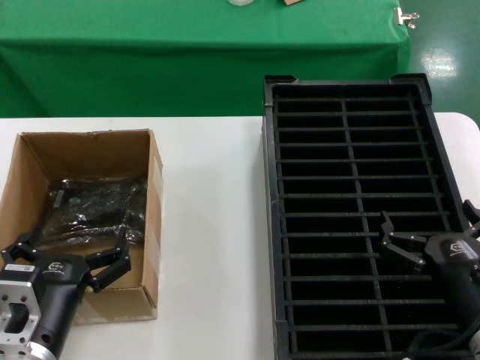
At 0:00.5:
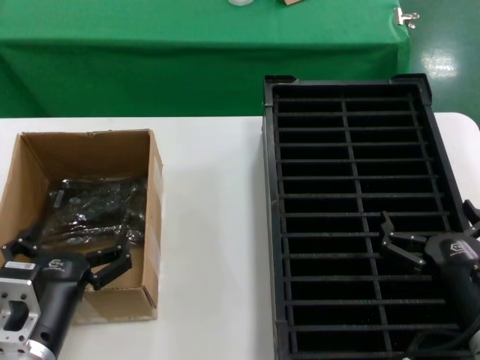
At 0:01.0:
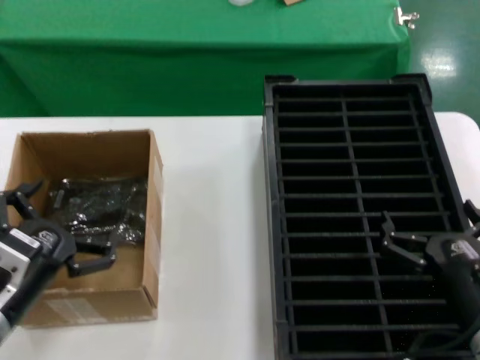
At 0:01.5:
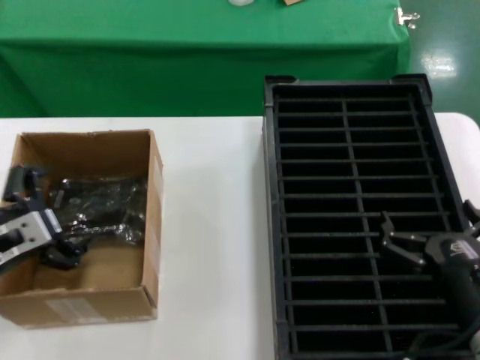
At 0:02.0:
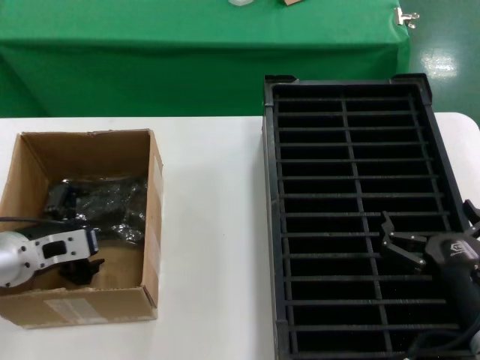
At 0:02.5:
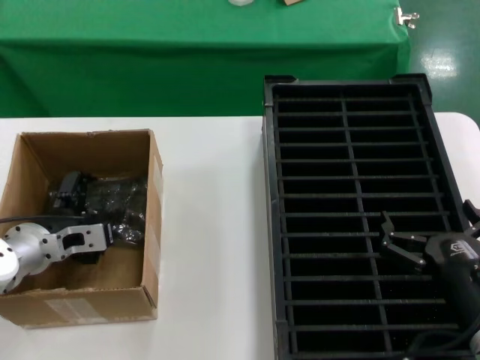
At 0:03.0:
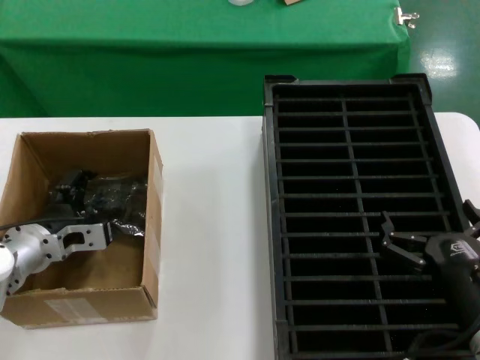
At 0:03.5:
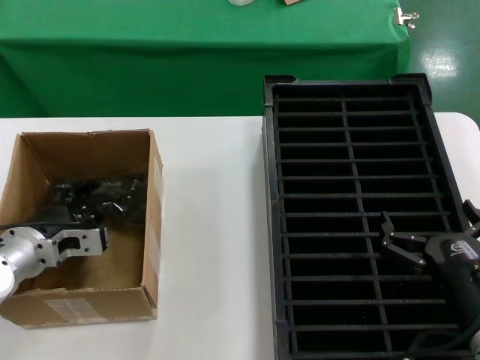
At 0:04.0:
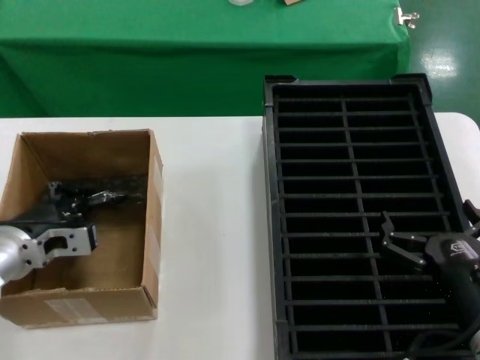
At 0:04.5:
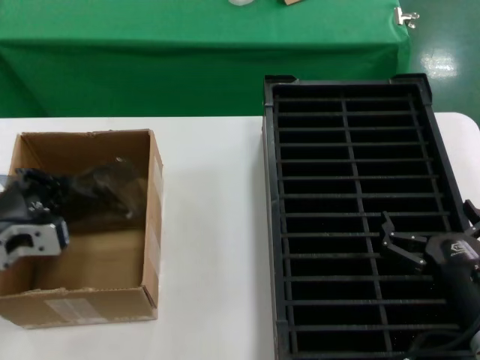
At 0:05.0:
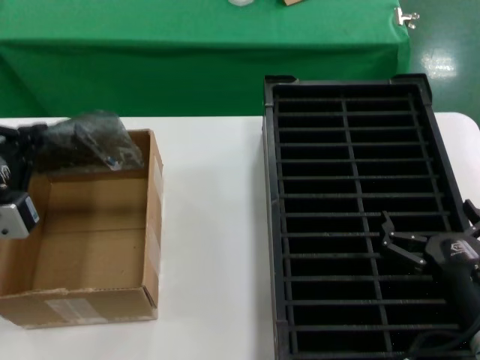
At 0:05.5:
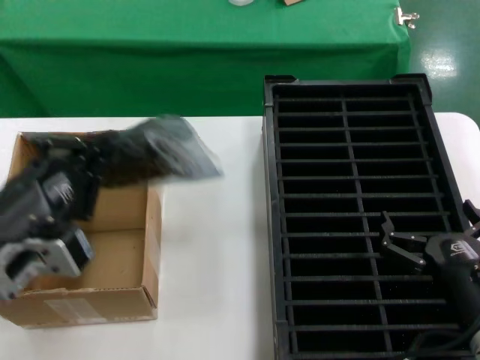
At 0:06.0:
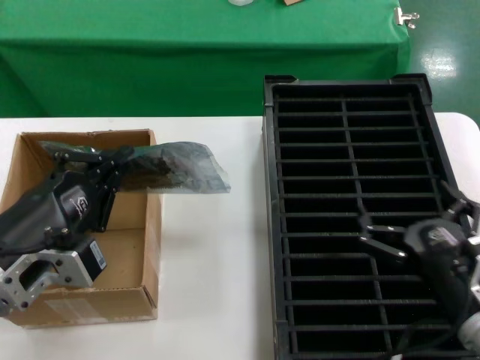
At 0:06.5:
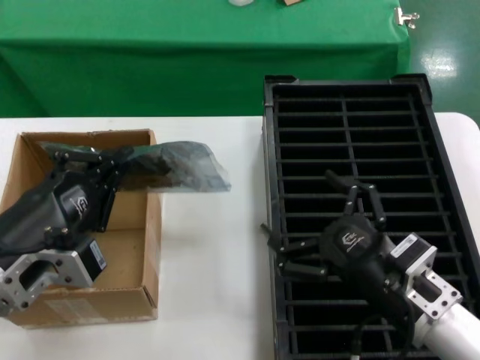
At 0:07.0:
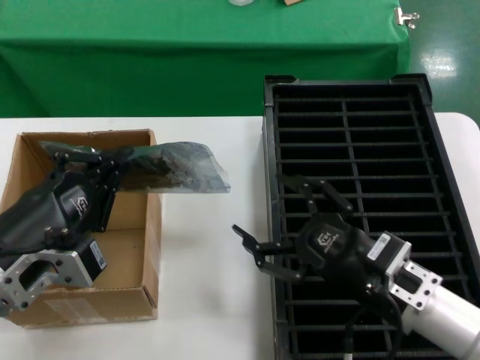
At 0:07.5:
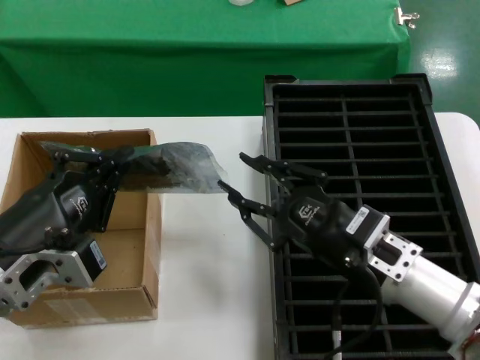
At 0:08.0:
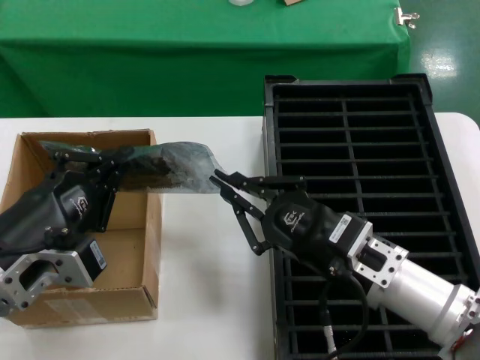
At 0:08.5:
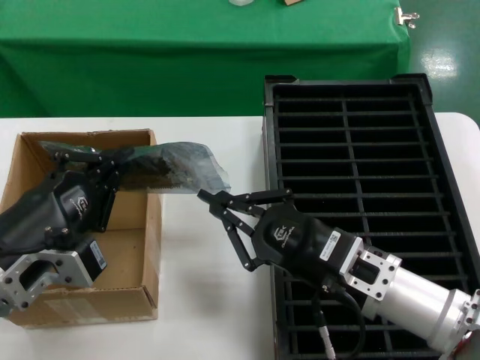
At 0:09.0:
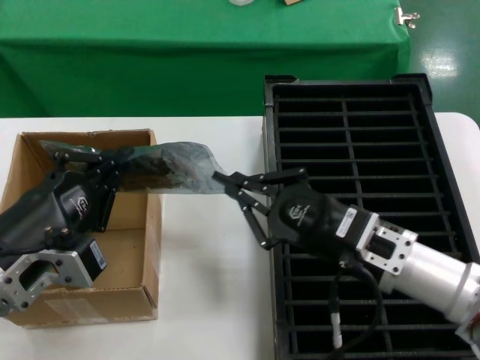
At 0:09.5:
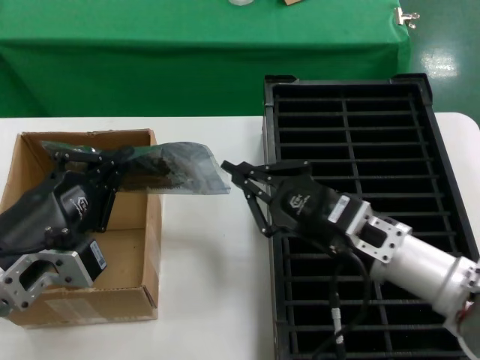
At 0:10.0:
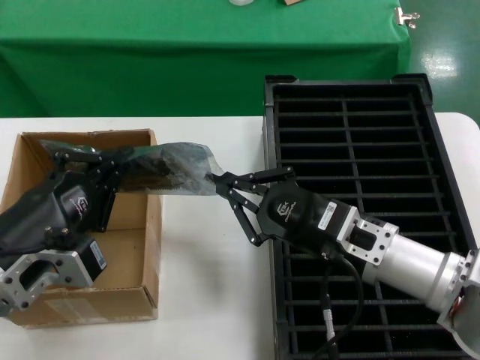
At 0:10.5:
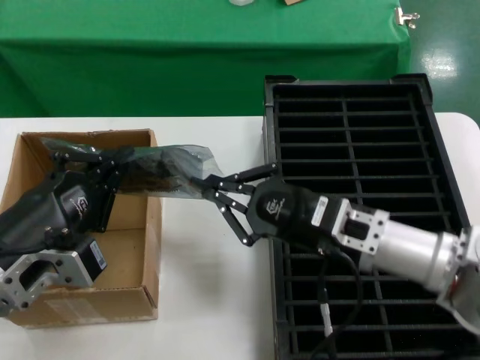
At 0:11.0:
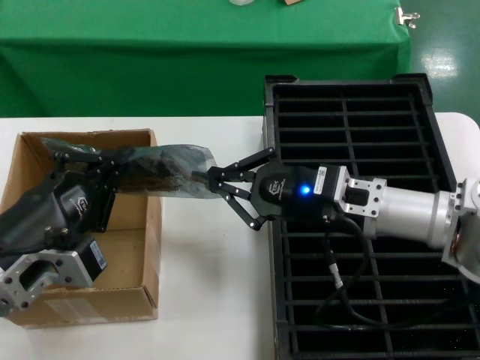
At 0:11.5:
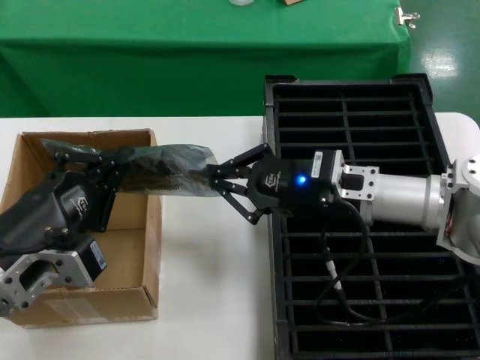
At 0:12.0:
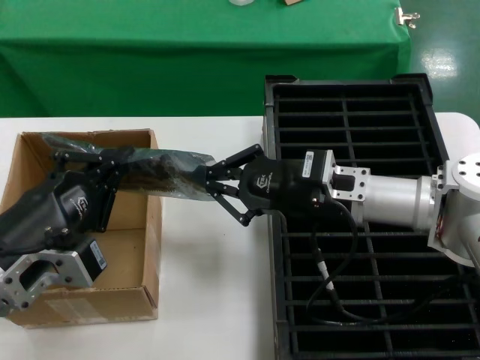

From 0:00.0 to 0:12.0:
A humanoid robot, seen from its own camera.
Task of the whole recording: take out graphics card from box remove packaging put into black container.
Step, from 0:00.0 to 0:03.5: Grasp the bag.
Step, from 0:04.5 to 0:06.0: Lift the bag.
From 0:00.0 to 0:02.0: The left hand is displaced forward and to the left by approximately 20 cm.
From 0:02.0 to 0:04.0: The hands stay close to where they were, moving slightly.
From 0:04.0 to 0:06.0: The left hand travels backward and upward by approximately 20 cm.
From 0:06.0 to 0:08.0: The right hand travels to the left and forward by approximately 10 cm.
From 0:08.0 to 0:10.0: The hands move only a little.
From 0:10.0 to 0:12.0: The right hand heads forward, covering approximately 10 cm.

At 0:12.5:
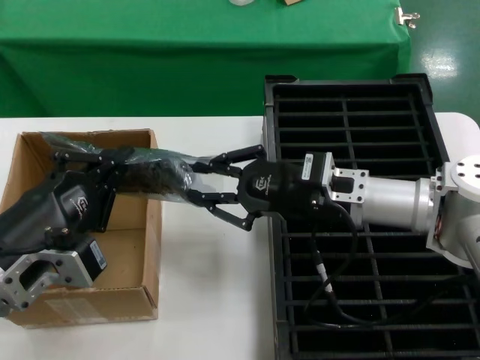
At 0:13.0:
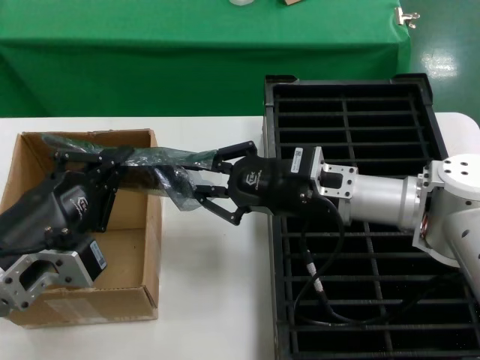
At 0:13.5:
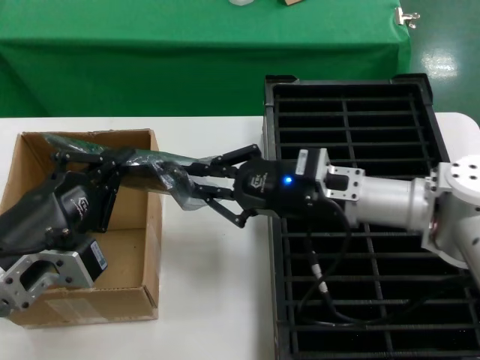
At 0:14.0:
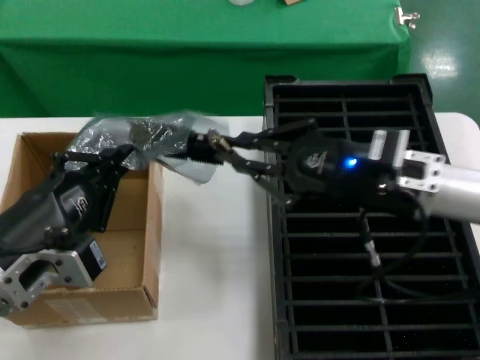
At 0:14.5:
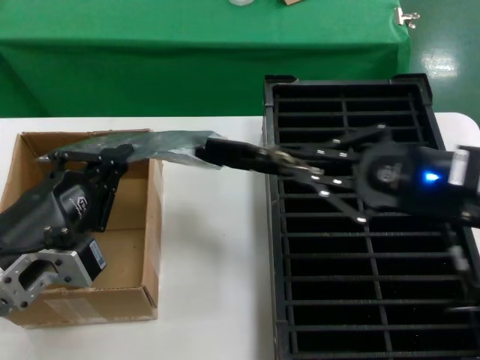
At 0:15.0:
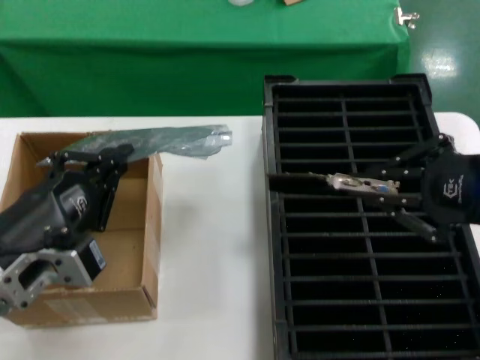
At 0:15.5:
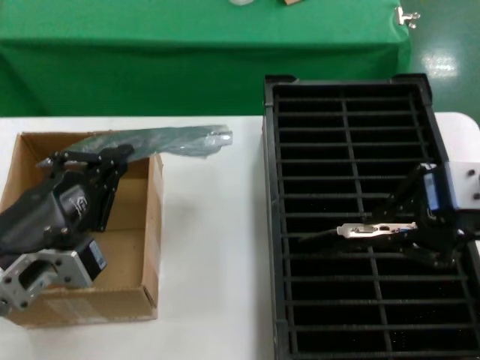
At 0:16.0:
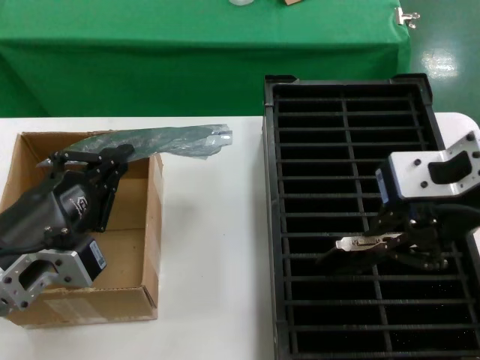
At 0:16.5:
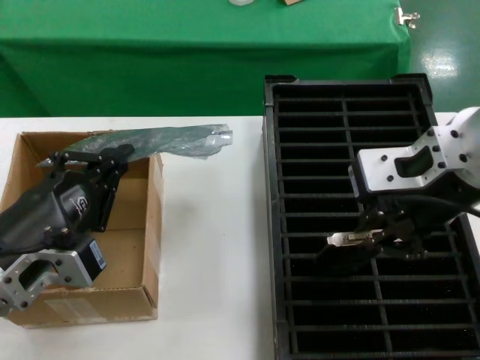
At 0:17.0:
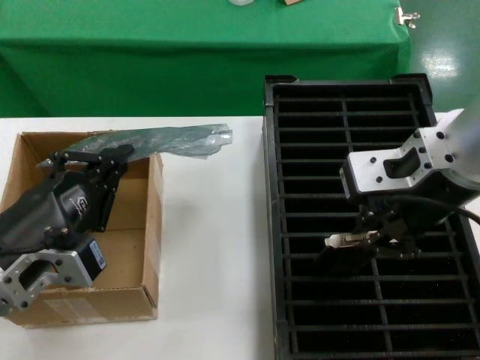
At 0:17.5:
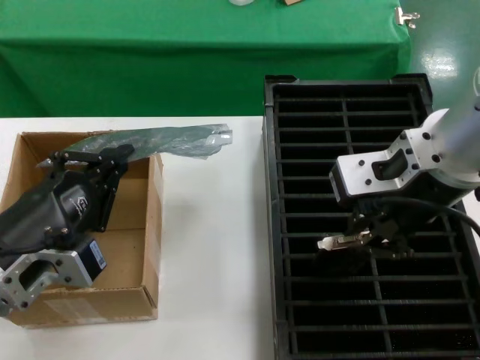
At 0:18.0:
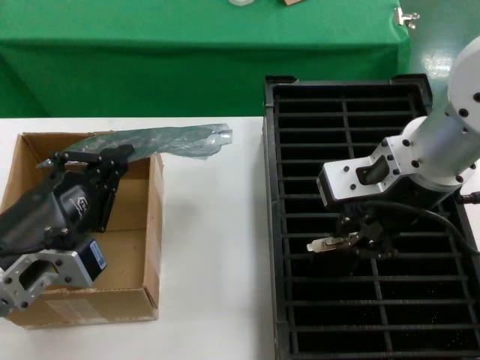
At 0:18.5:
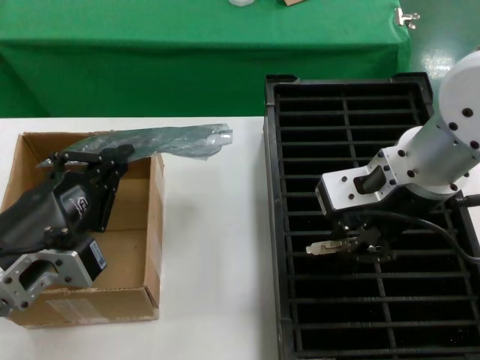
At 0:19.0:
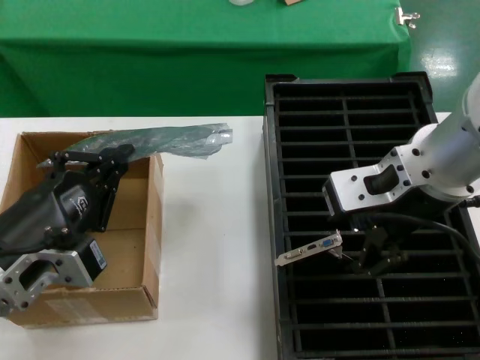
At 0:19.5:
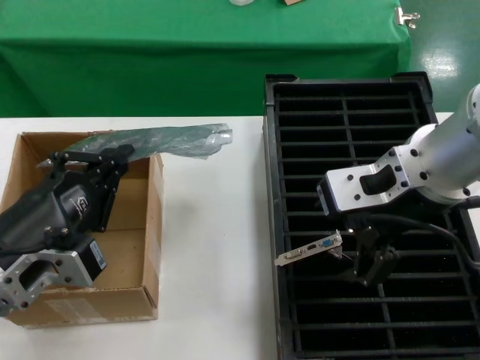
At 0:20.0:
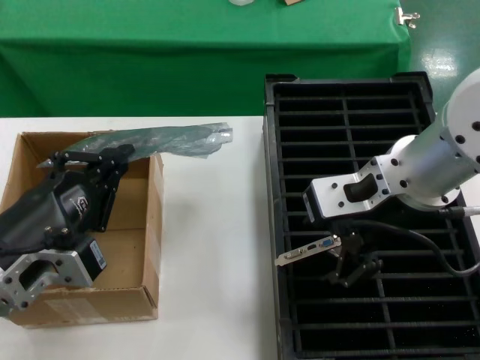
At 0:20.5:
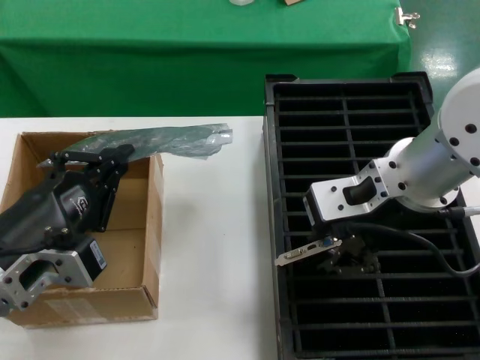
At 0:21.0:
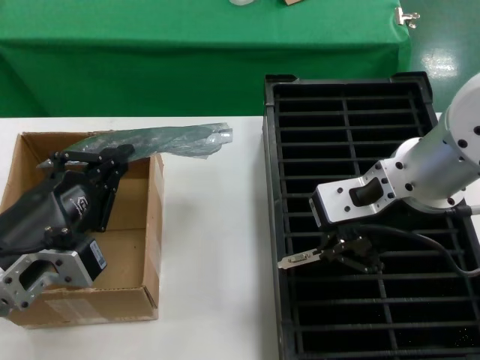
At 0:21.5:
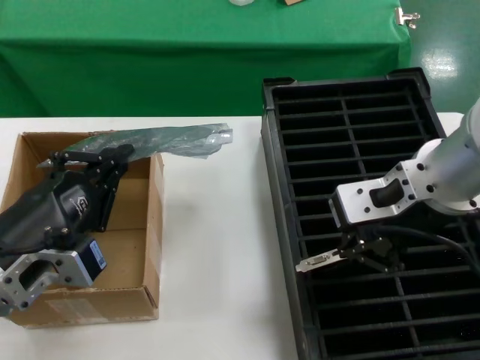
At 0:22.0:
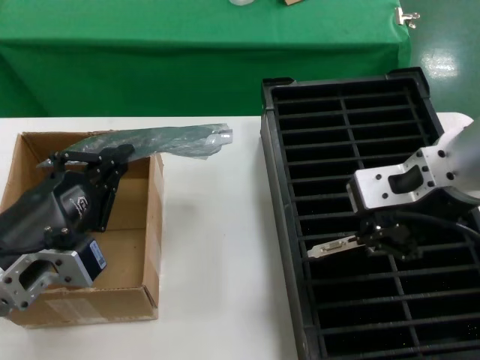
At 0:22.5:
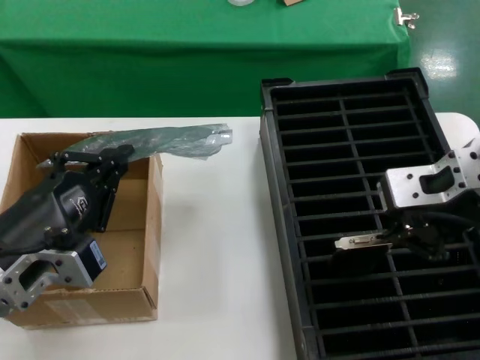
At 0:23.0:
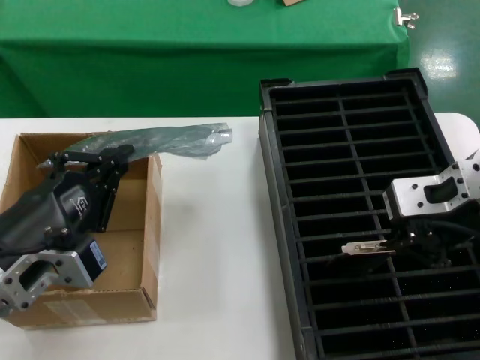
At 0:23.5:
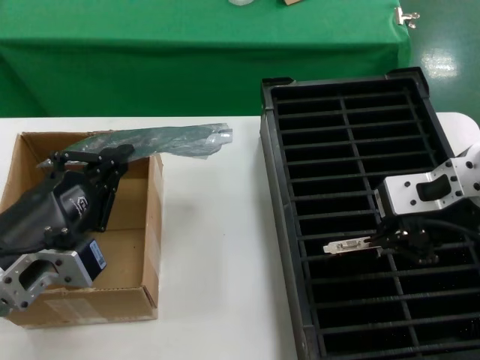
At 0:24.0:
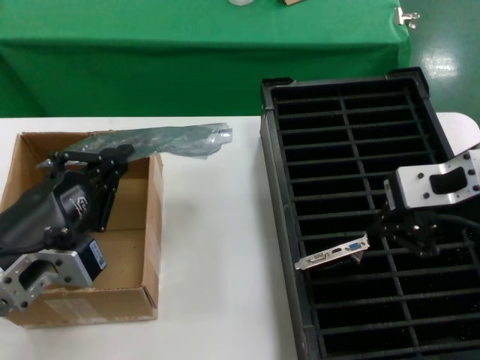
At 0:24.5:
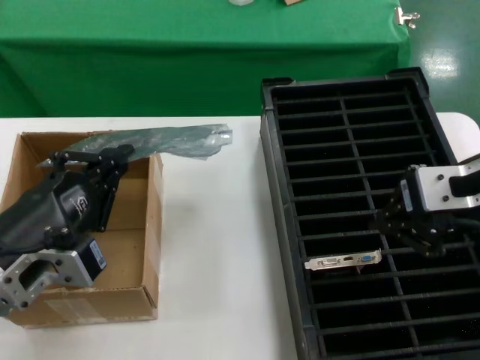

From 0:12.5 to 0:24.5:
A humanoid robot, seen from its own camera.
Task of the whole recording: take out graphics card from box remove packaging put into black container.
Step, from 0:12.5 to 0:14.5: Take out the hard disk of the bag.
Step, from 0:15.0 to 0:24.0: Place the hard disk in the hard disk enclosure.
From 0:12.5 to 0:14.5: The right hand heads backward, to the right and upward, covering roughly 20 cm.
From 0:14.5 to 0:16.5: The right hand goes roughly 15 cm upward and to the left.
From 0:16.5 to 0:18.5: The right hand changes place by roughly 5 cm.
From 0:18.5 to 0:20.5: The hands move only a little.
From 0:20.5 to 0:22.5: The right hand moves to the right, roughly 5 cm.
From 0:22.5 to 0:24.5: The hands stay close to where they were, moving slightly.

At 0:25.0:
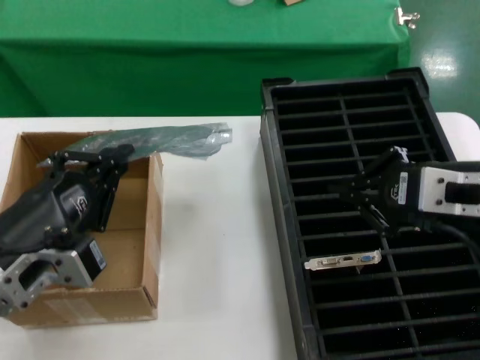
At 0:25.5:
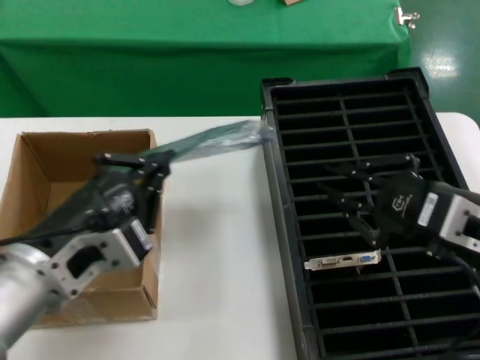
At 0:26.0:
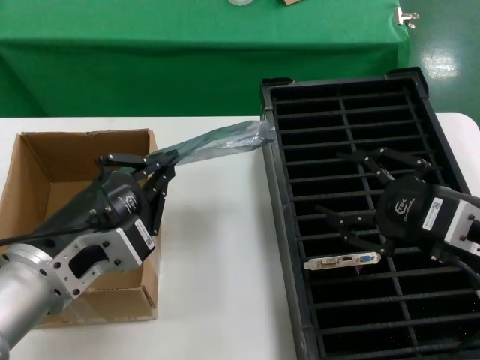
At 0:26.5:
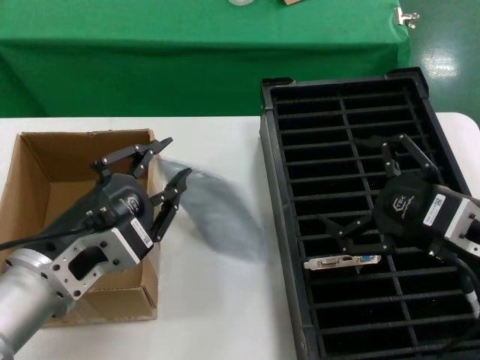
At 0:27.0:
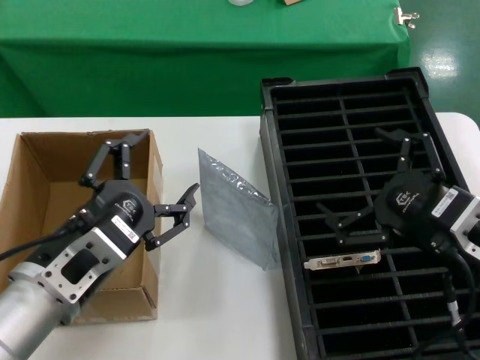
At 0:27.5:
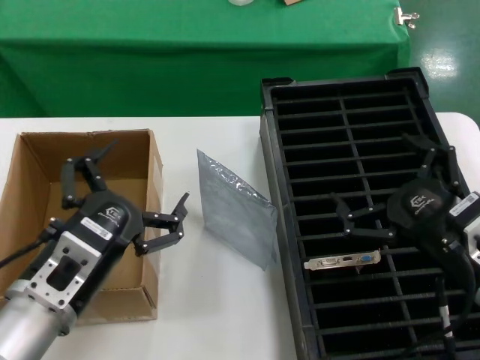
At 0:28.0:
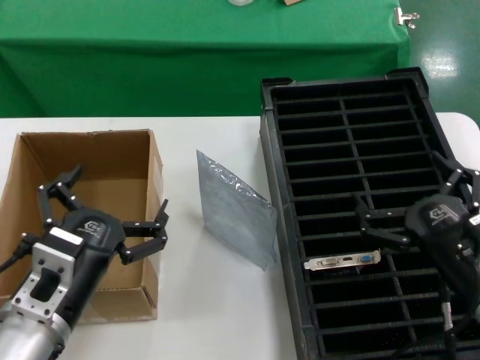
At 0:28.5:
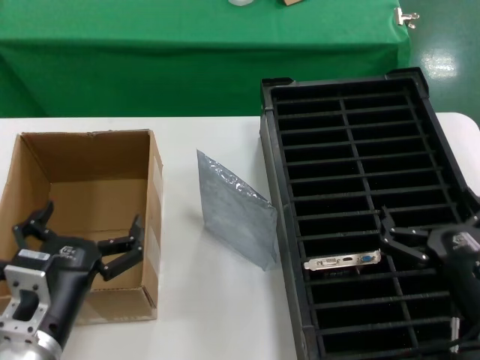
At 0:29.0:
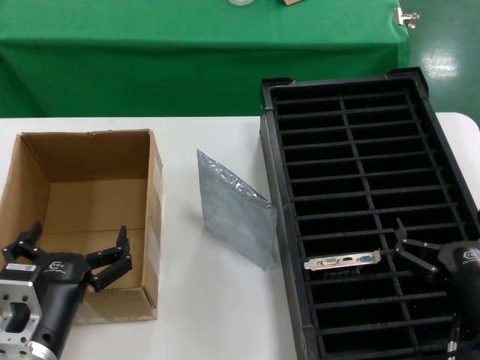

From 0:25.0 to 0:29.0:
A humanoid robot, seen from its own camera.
Task of the whole recording: take out graphics card from box remove packaging put into black container.
Step, from 0:25.0 to 0:26.5: Place the down the bag.
From 0:25.0 to 0:27.0: The left hand shifts by roughly 5 cm; the right hand goes about 10 cm downward.
From 0:27.0 to 0:29.0: Both hands travel together downward, roughly 10 cm.
